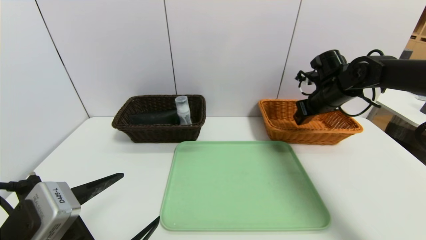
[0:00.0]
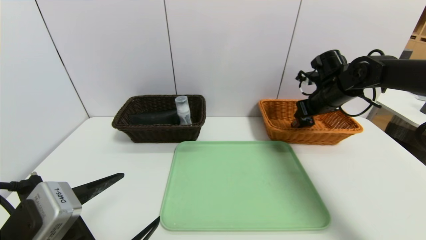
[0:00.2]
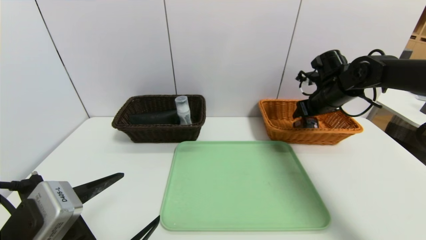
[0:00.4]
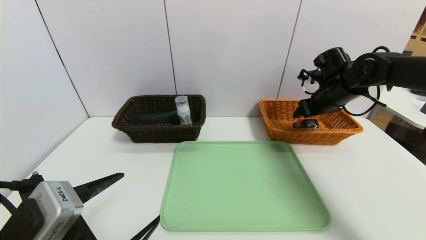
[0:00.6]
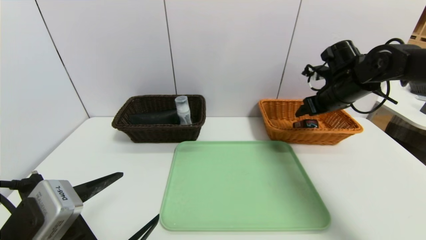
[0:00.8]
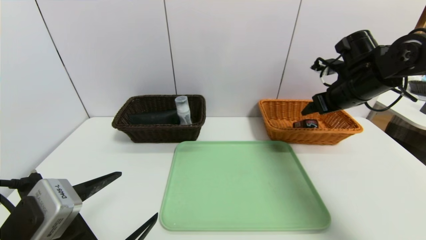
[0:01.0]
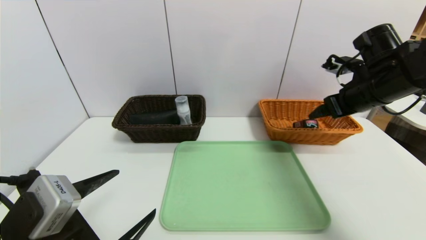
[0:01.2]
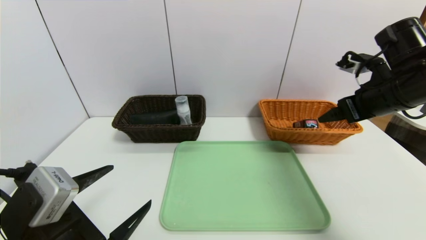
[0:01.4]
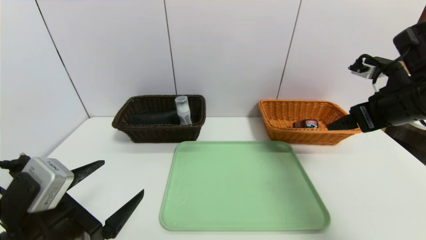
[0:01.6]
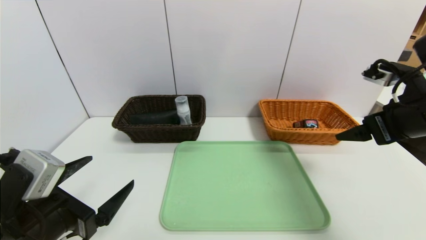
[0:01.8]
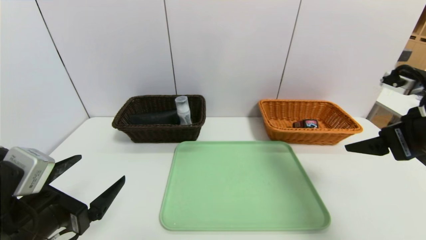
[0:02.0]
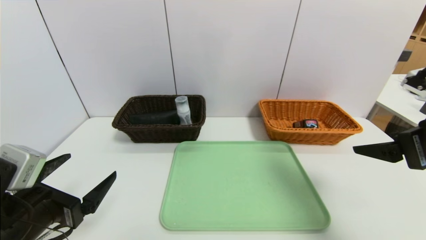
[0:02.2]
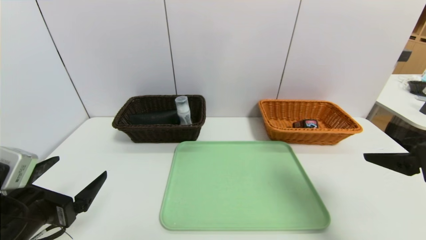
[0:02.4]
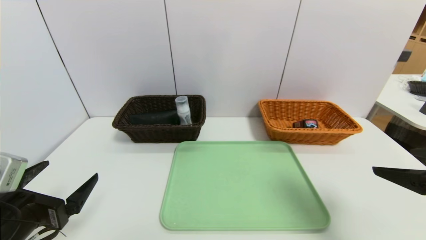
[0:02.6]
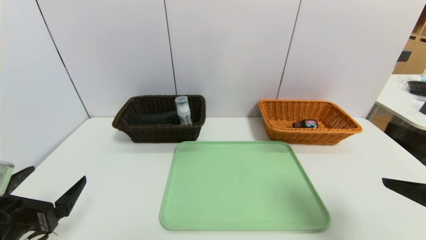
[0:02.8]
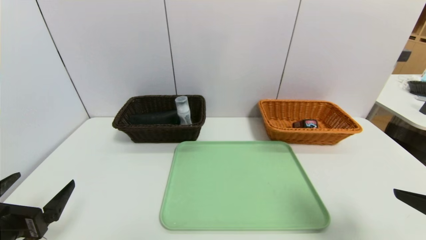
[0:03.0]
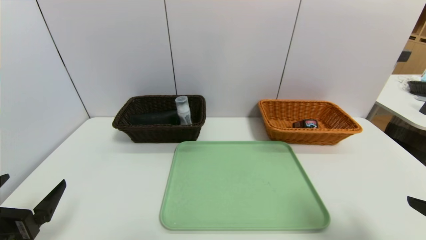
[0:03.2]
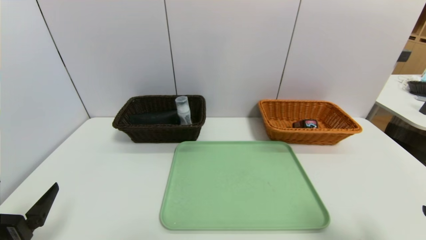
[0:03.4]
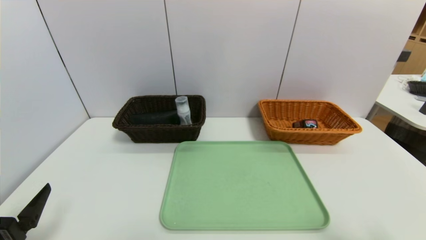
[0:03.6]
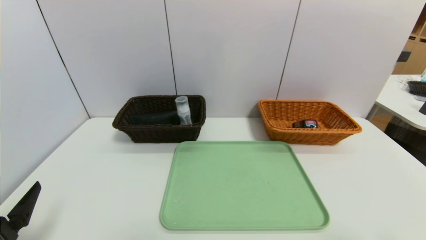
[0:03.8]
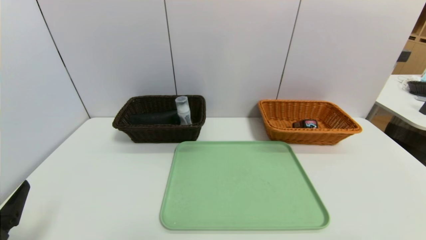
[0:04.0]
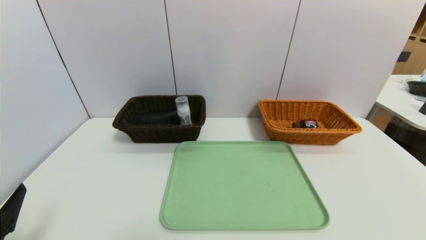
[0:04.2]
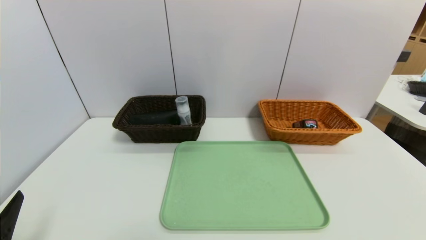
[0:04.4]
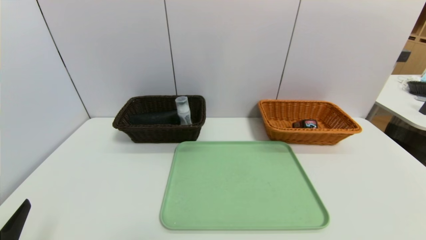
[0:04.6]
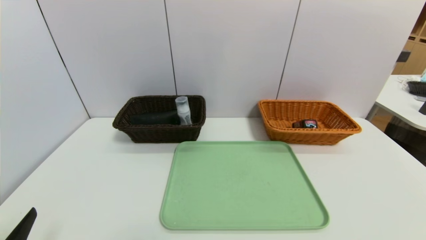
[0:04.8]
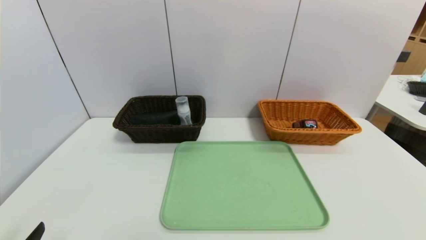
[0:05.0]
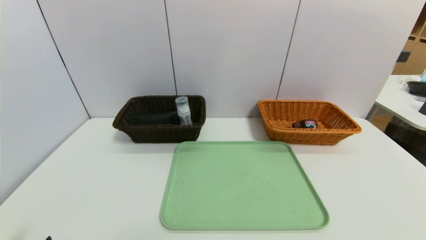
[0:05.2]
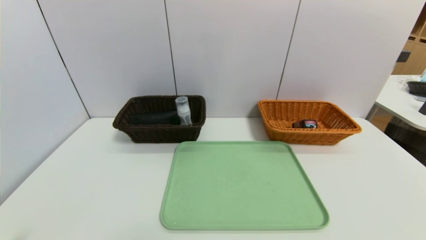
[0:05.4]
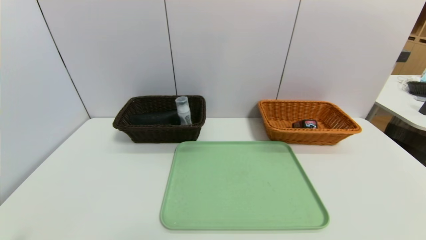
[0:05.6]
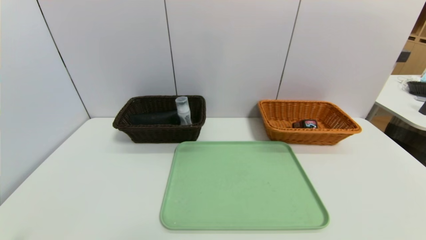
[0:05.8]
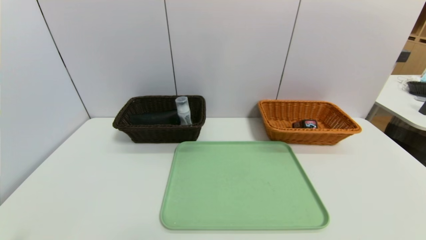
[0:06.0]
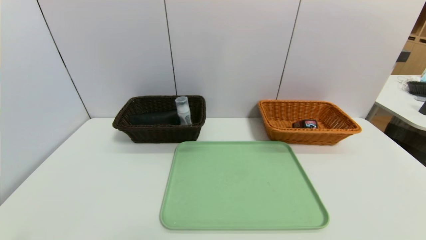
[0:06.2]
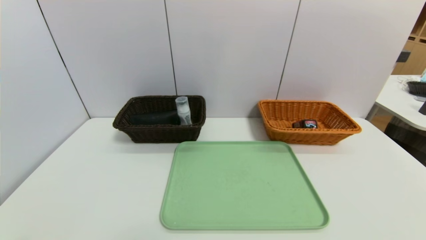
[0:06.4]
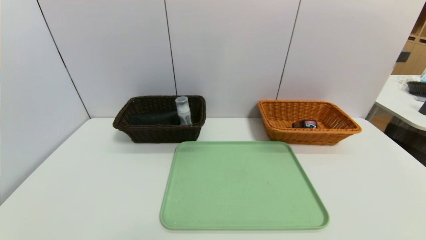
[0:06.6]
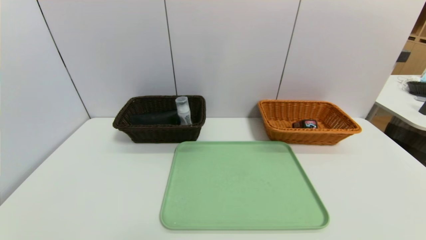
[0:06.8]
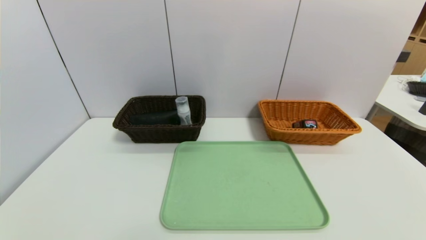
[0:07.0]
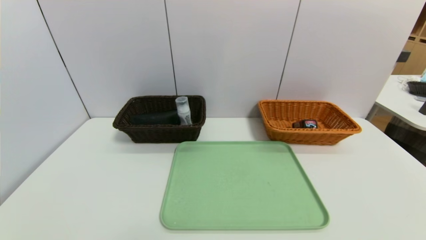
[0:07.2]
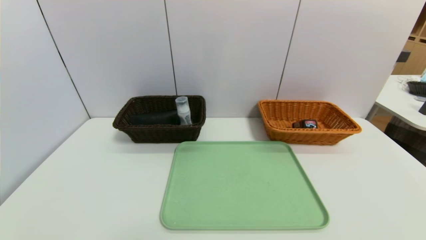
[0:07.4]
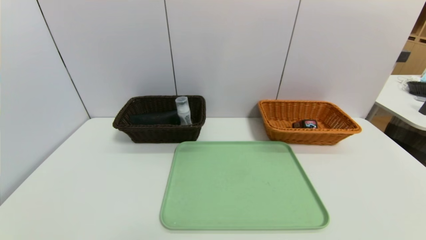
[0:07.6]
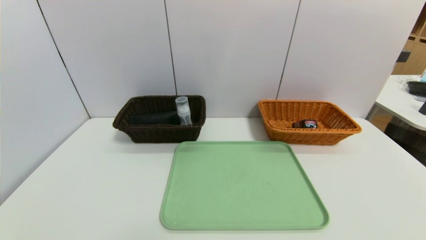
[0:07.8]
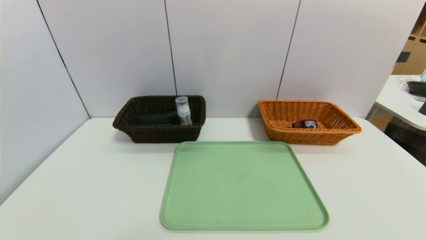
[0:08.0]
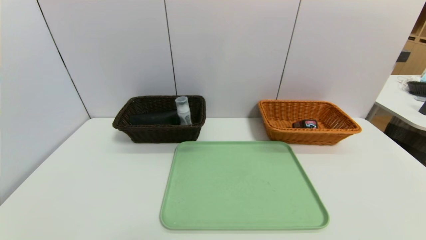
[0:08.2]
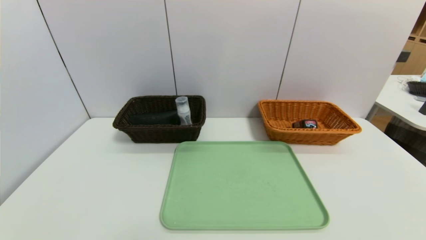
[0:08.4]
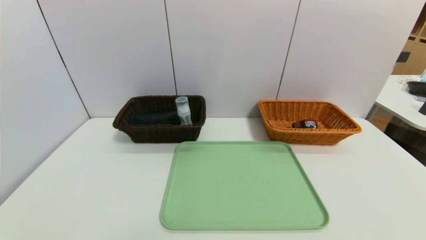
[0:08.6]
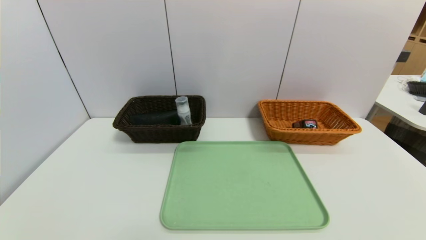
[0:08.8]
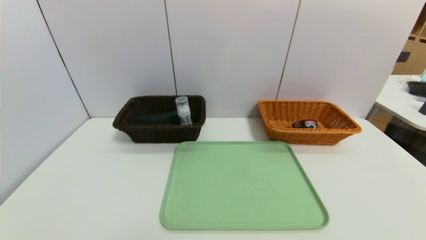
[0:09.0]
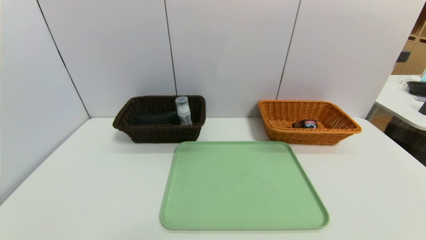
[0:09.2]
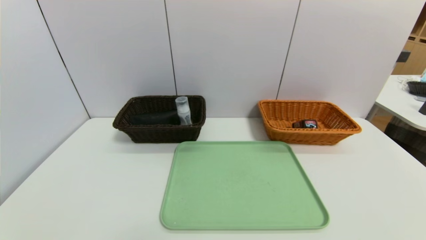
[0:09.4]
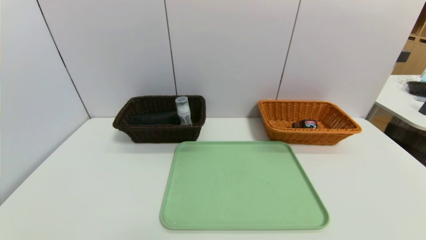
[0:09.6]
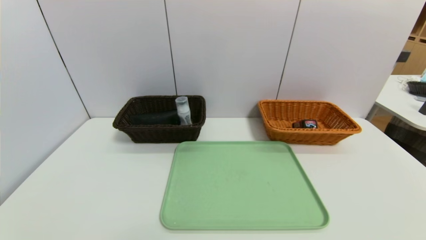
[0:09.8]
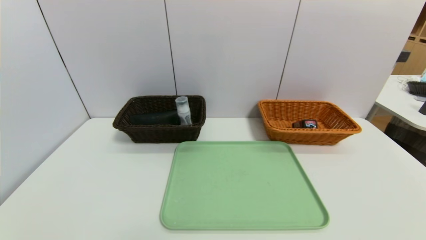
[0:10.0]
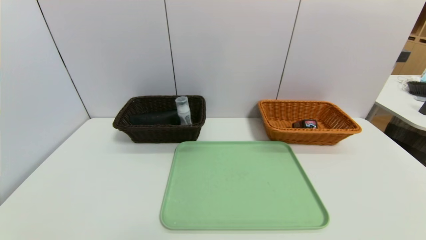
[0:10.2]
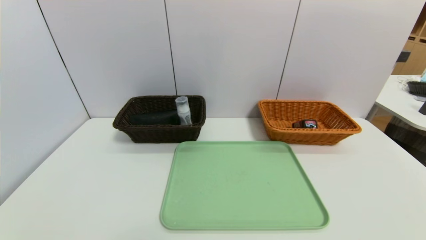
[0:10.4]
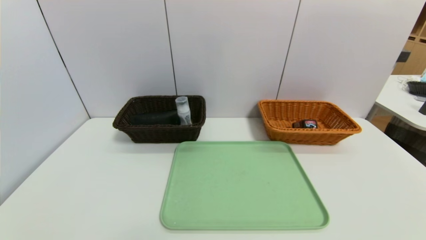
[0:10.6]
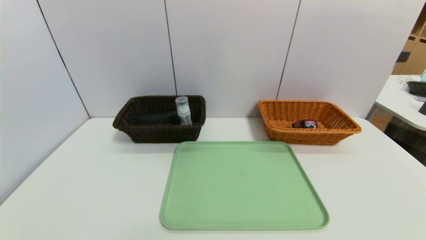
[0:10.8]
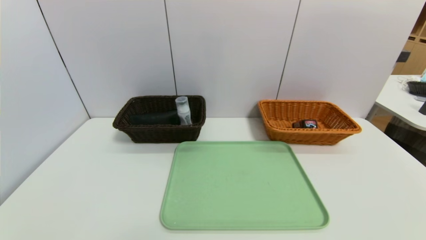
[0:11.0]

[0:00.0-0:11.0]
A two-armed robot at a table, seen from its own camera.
Task of the whole recording: place the food in the right basket with the right gripper, and place the non food items in the left basket with the left gripper.
0:00.0 to 0:01.6: The right gripper goes approximately 15 cm backward, and opens its fingers.
0:01.6 to 0:03.2: The right gripper is displaced backward by some 20 cm. The left gripper is displaced to the left by some 5 cm.
0:03.2 to 0:04.8: The left gripper shifts approximately 5 cm backward, while the right gripper is displaced backward and downward by some 10 cm.
0:09.4 to 0:11.0: Both grippers stay put.
